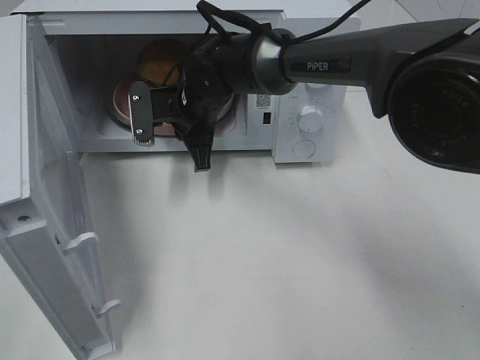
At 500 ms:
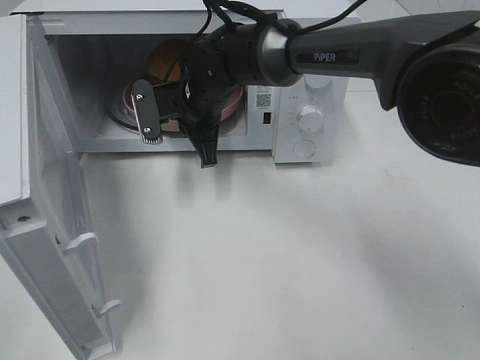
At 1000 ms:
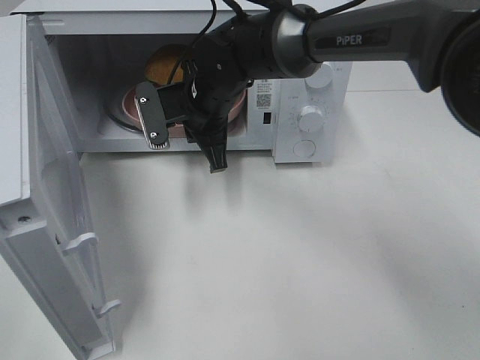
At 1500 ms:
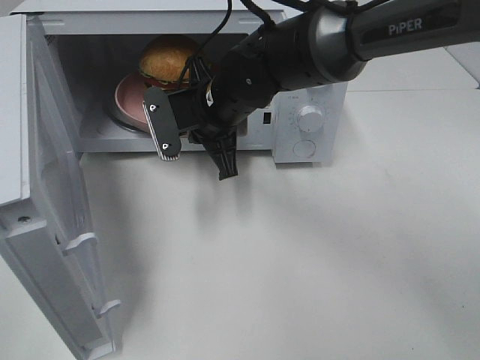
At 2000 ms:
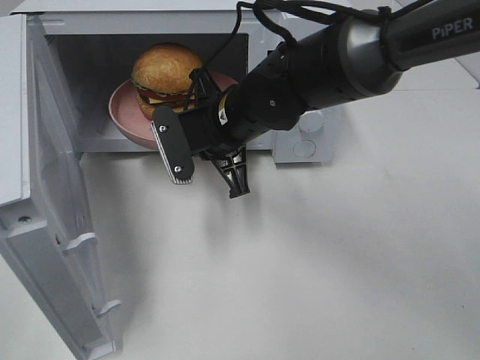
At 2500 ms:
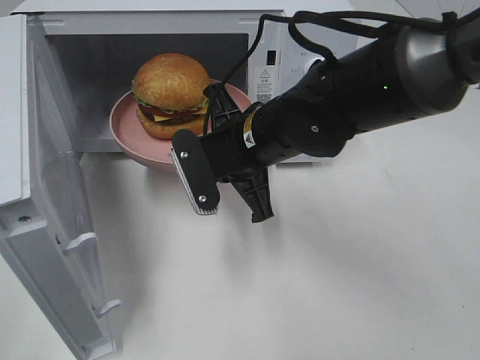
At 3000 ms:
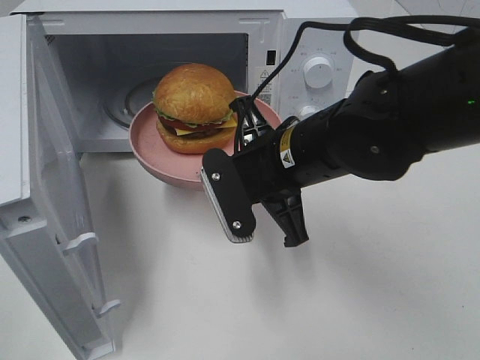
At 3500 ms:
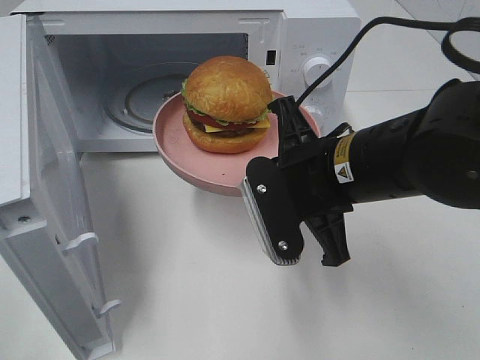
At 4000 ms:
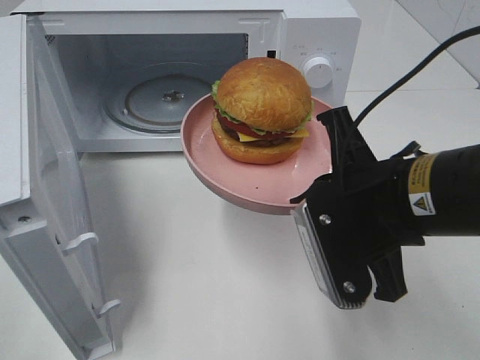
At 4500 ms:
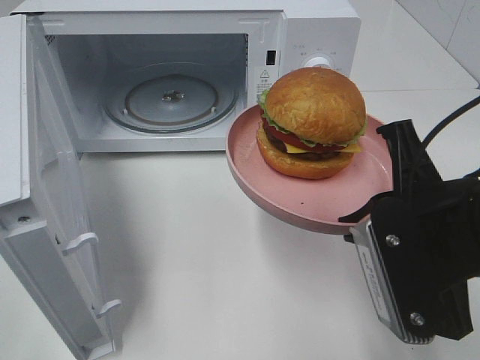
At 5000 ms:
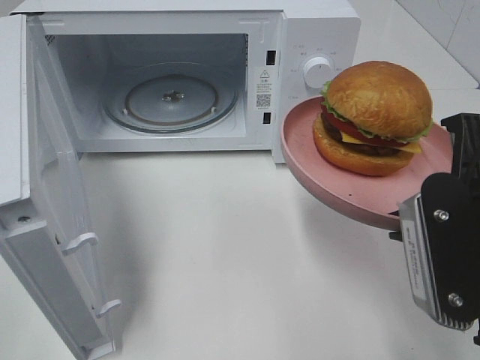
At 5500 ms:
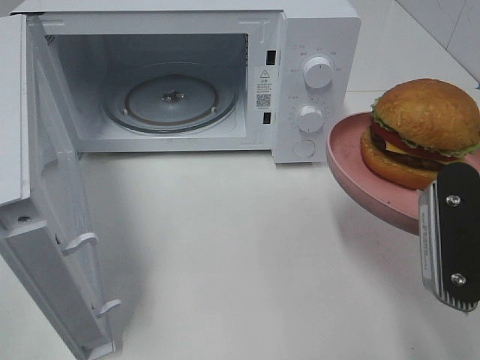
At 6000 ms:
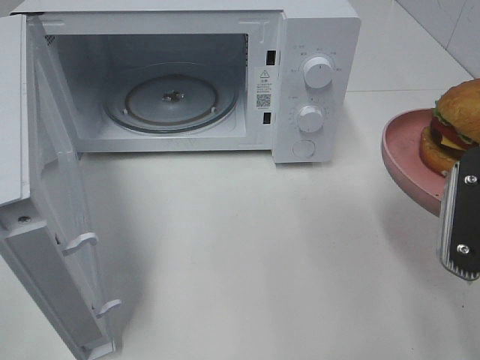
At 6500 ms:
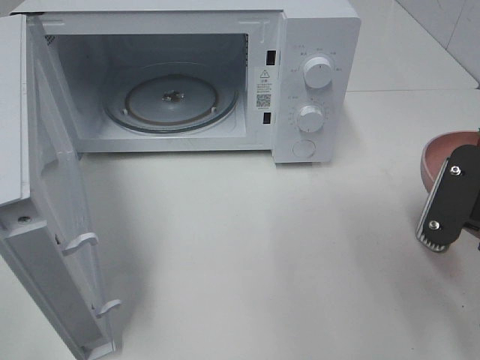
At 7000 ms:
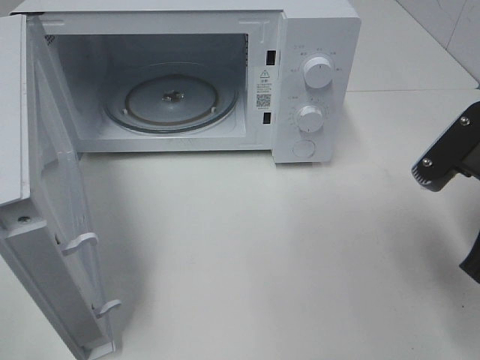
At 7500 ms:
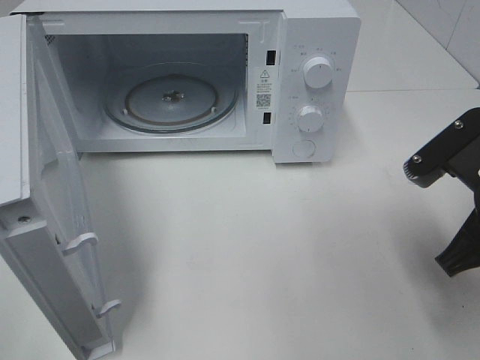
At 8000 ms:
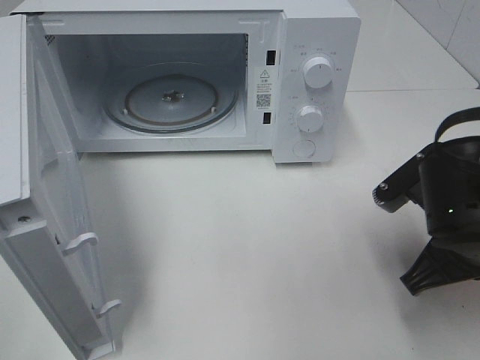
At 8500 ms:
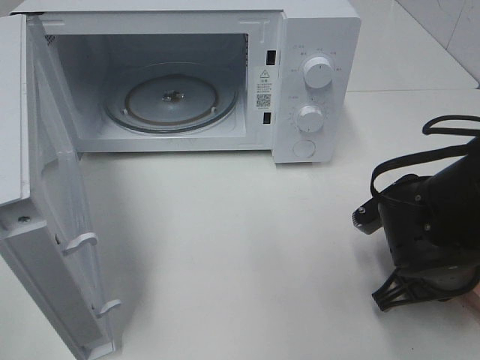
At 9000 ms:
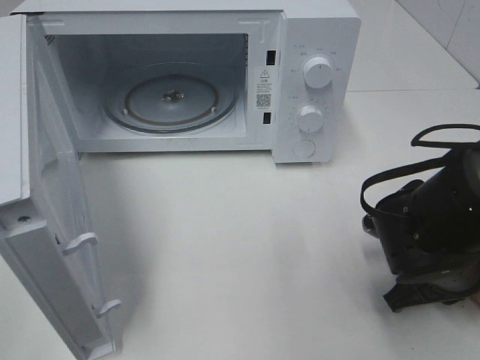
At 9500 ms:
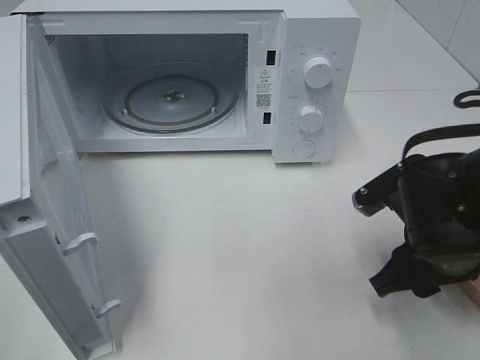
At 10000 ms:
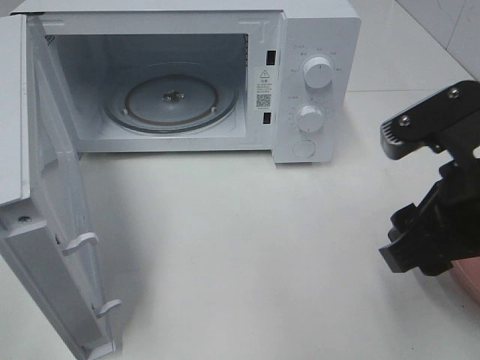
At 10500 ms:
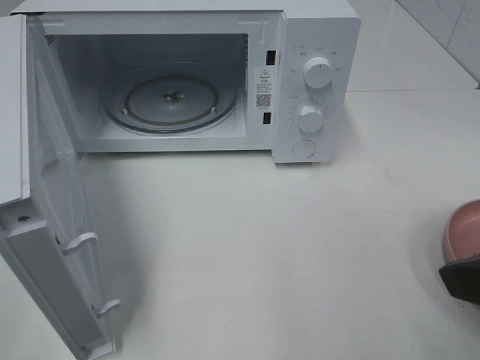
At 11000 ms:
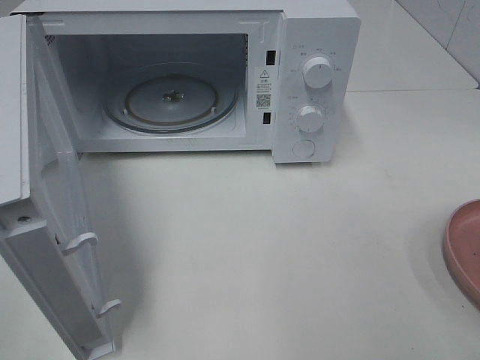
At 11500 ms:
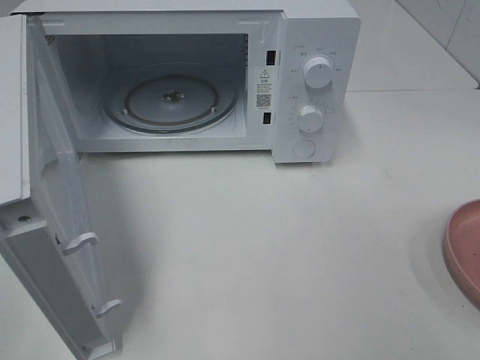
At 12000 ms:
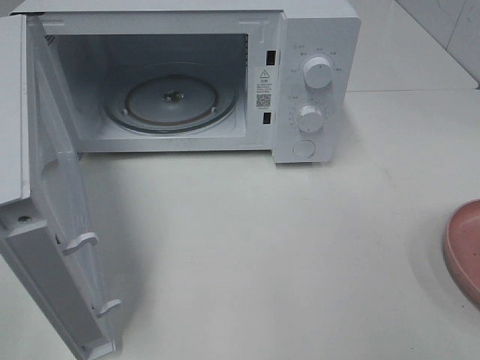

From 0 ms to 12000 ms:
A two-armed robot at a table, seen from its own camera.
Task of the whole recording: Heat the burger.
Step, from 500 ms to 9000 ms: Right hand: place the plate on the table.
From 0 ms to 2000 ms: The right gripper shifts roughly 10 cm backward.
From 2000 ms to 4000 ms: The right gripper moves backward and to the right, about 20 cm.
From 4000 ms to 6000 ms: The right gripper goes roughly 10 cm to the right.
From 6000 ms to 8000 ms: The right gripper shifts approximately 10 cm downward and forward.
From 8000 ms to 10000 ms: The right gripper moves upward, approximately 10 cm, and opens up.
From 10000 ms to 12000 ms: The right gripper moves backward and to the right, roughly 20 cm.

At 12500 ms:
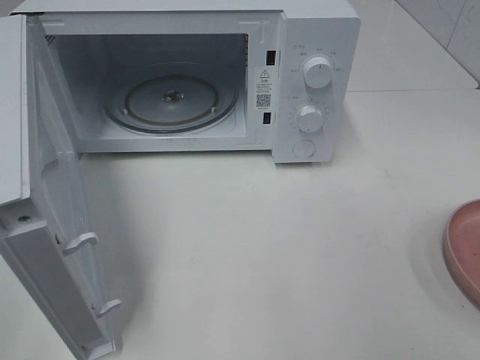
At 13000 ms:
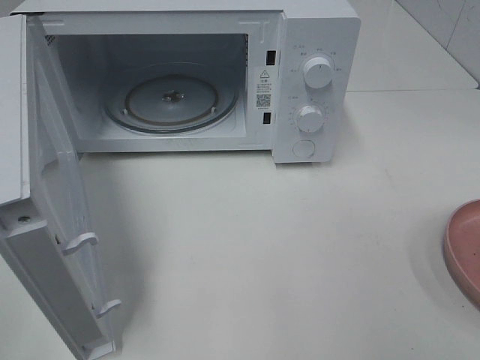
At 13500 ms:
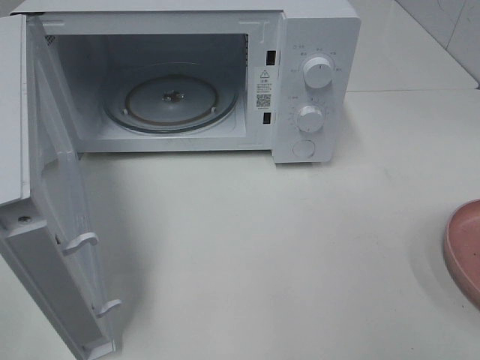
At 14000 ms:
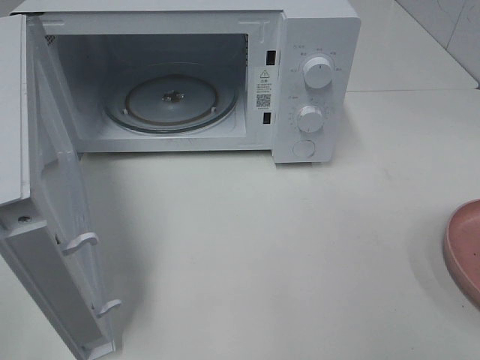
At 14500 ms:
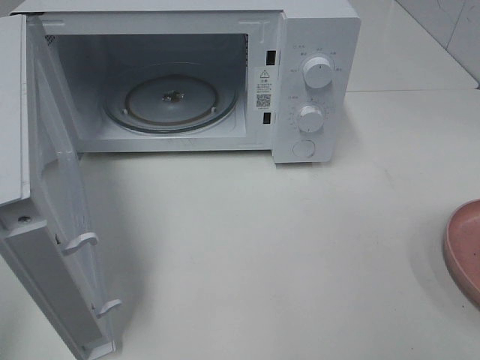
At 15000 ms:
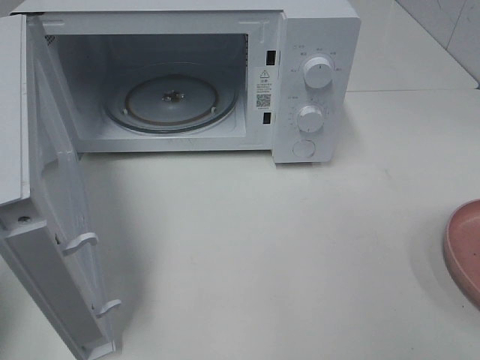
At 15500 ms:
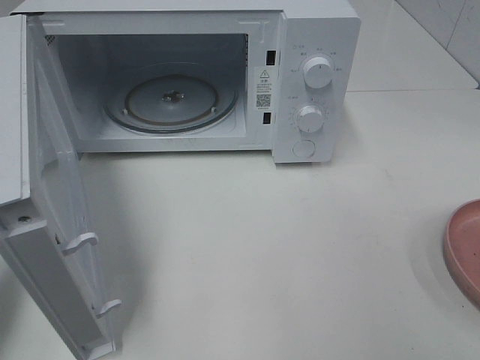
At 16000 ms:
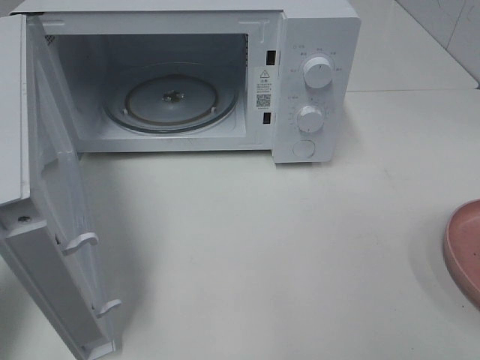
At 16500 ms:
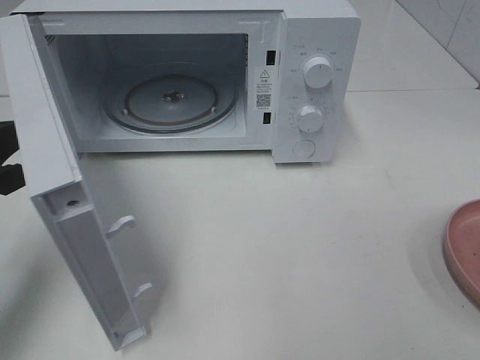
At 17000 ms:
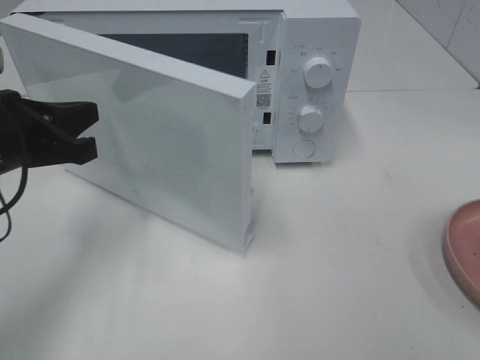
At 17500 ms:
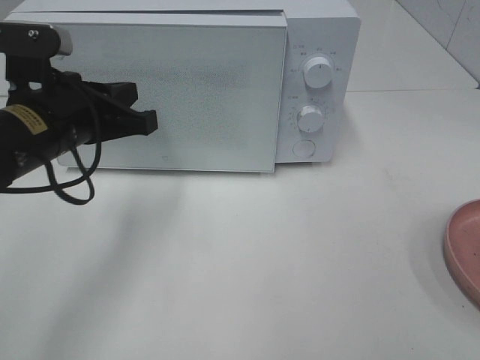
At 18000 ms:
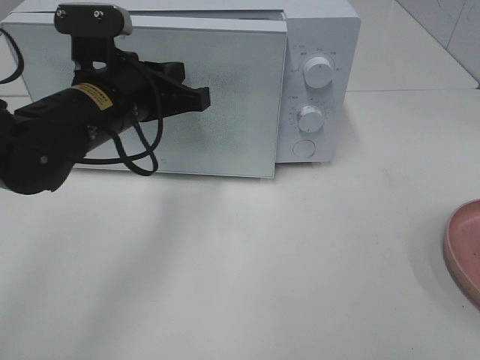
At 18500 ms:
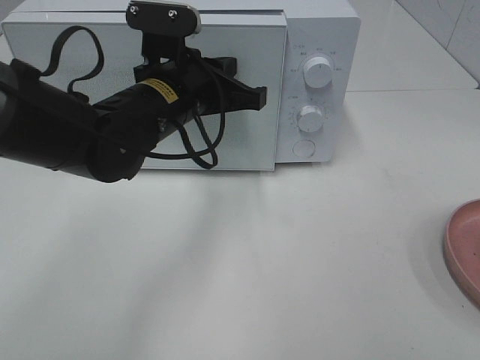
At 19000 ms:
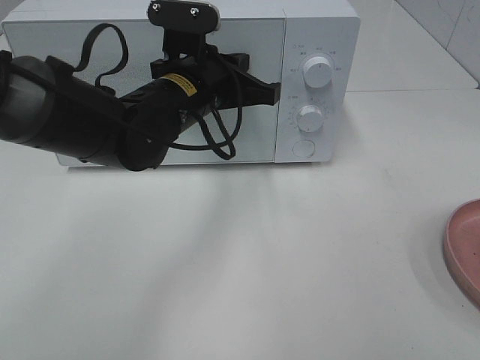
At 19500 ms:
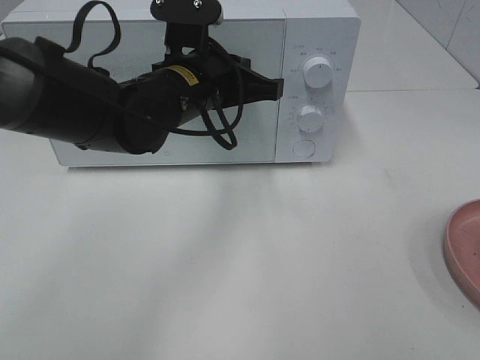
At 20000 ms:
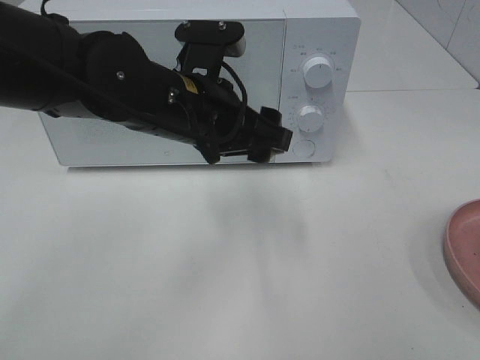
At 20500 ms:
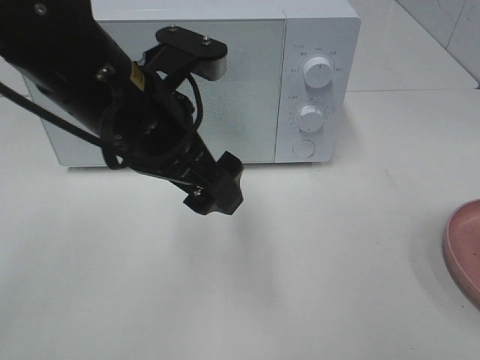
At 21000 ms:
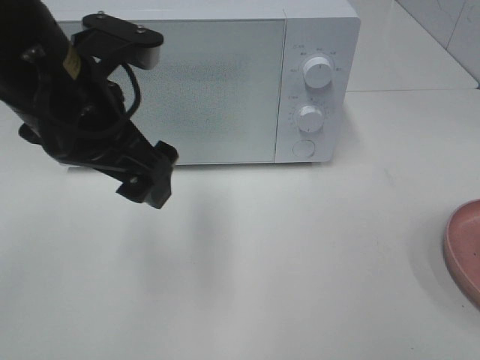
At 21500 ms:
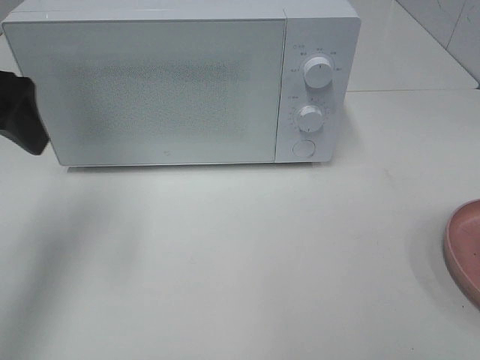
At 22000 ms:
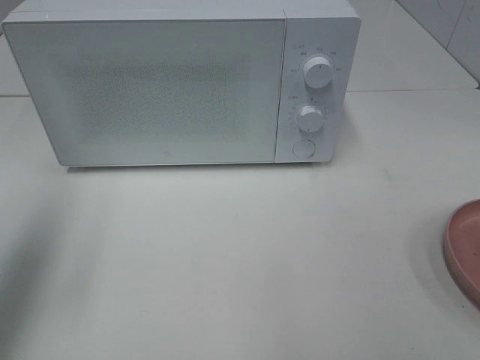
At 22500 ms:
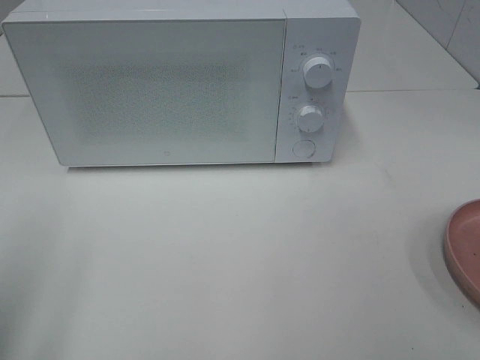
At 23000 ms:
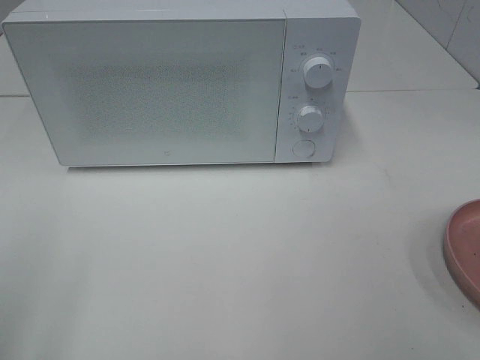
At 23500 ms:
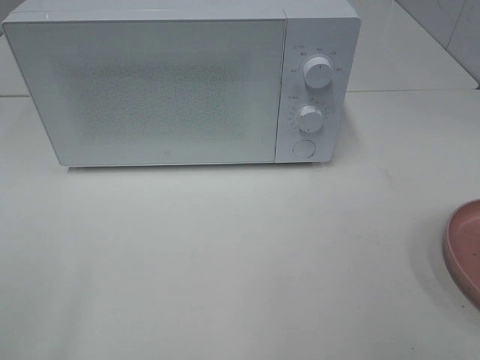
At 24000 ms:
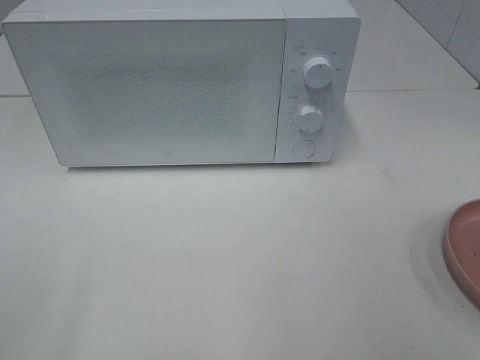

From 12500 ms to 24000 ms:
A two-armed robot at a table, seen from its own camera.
Task of the whole recording: Heat the burger.
Step, from 12500 ms to 19500 ms: Left hand: close the microwave door.
From 14500 ms to 16500 ms: The left gripper travels forward and downward by about 20 cm, and closes.
From 16500 ms to 18500 ms: The left gripper is displaced to the right and forward by approximately 25 cm.
From 18500 ms to 20000 ms: The left gripper opens its fingers.
From 20000 ms to 22000 ms: The left gripper heads to the left, covering about 25 cm.
From 22000 ms to 24000 ms: The left gripper shifts roughly 20 cm backward.
